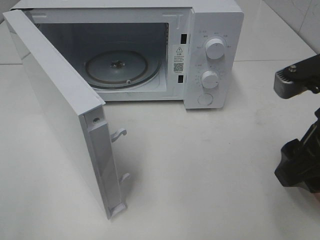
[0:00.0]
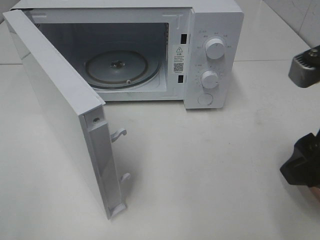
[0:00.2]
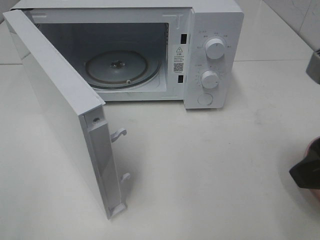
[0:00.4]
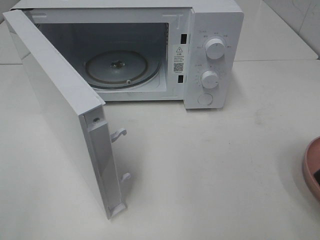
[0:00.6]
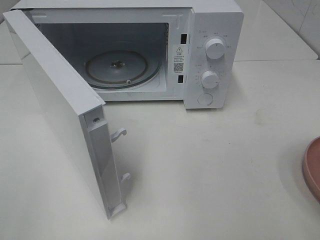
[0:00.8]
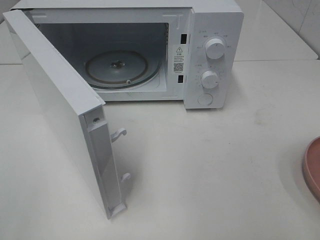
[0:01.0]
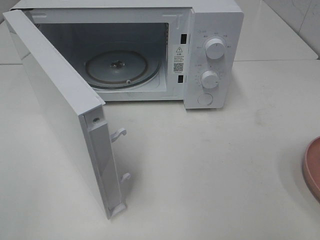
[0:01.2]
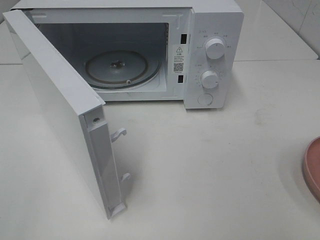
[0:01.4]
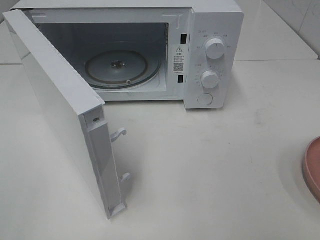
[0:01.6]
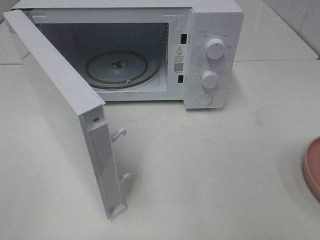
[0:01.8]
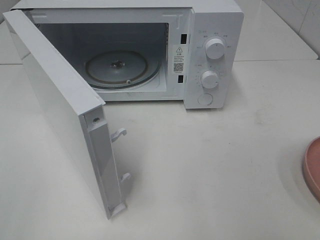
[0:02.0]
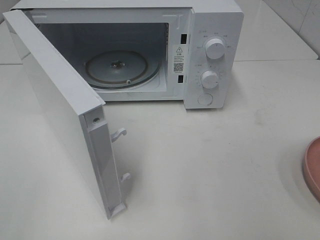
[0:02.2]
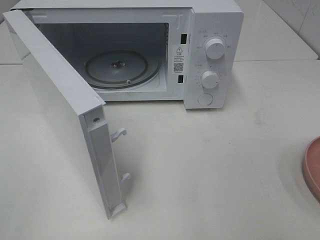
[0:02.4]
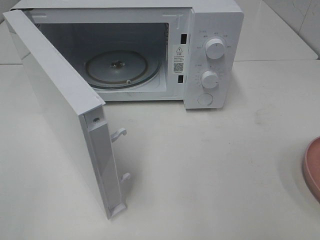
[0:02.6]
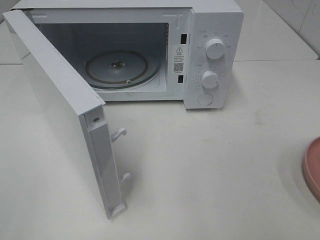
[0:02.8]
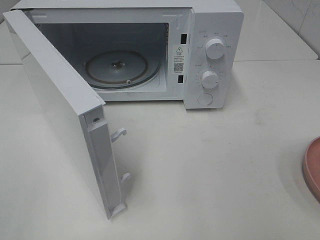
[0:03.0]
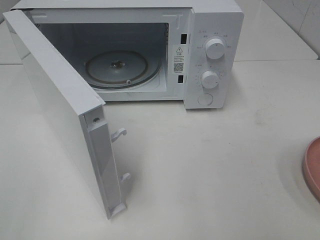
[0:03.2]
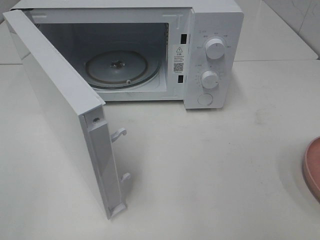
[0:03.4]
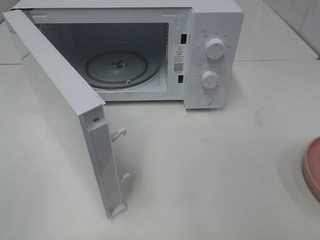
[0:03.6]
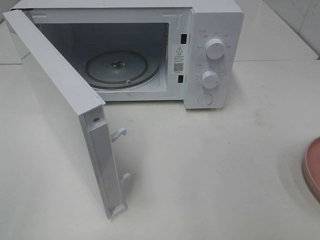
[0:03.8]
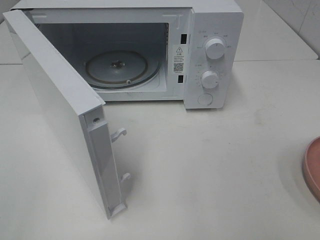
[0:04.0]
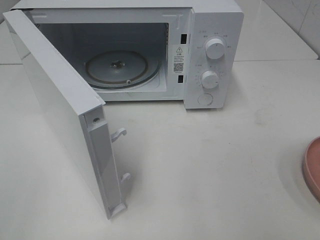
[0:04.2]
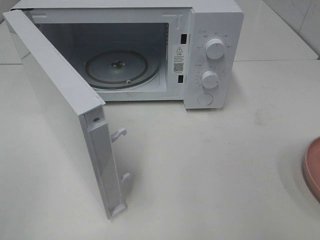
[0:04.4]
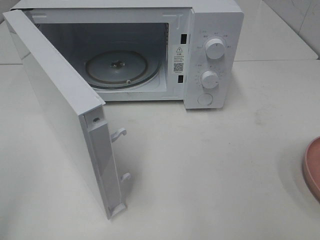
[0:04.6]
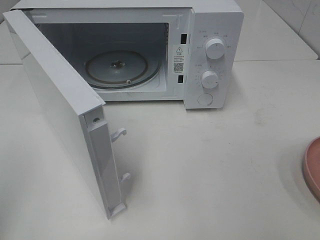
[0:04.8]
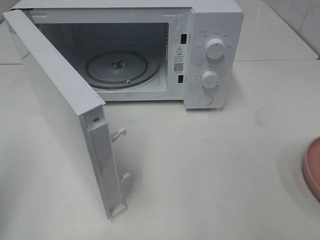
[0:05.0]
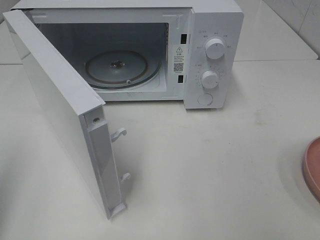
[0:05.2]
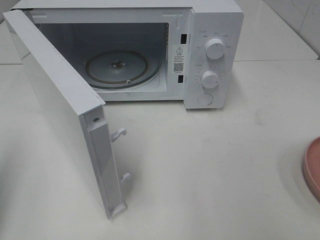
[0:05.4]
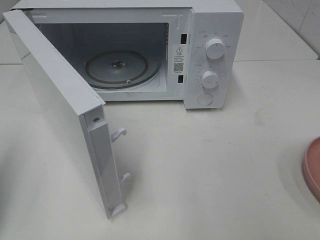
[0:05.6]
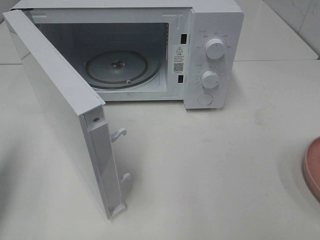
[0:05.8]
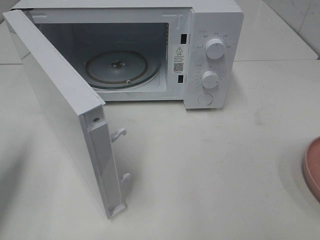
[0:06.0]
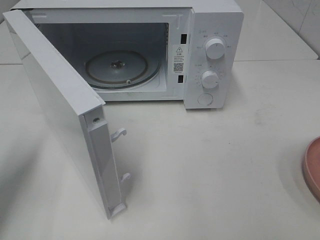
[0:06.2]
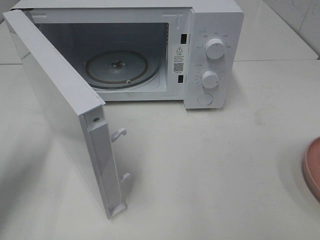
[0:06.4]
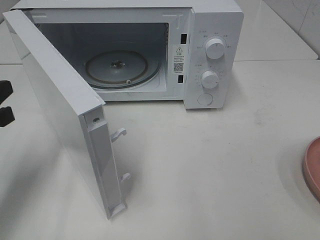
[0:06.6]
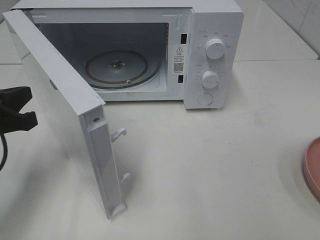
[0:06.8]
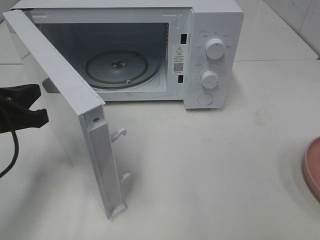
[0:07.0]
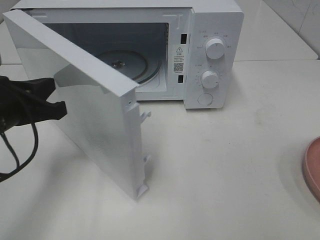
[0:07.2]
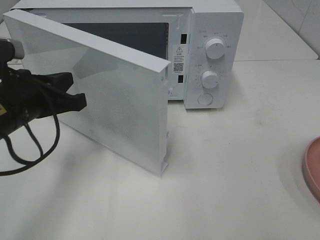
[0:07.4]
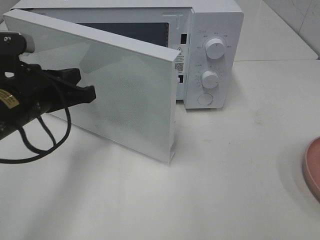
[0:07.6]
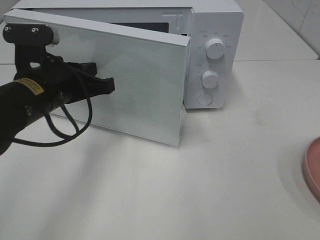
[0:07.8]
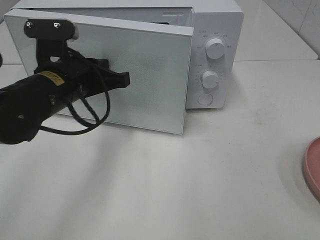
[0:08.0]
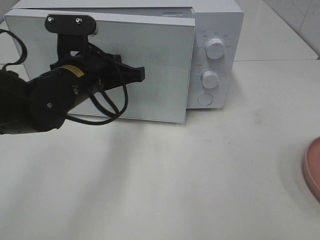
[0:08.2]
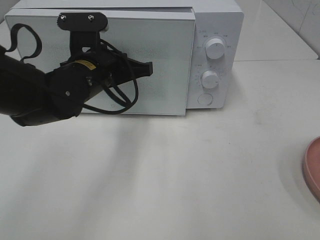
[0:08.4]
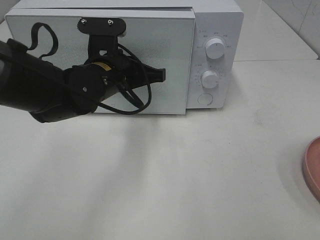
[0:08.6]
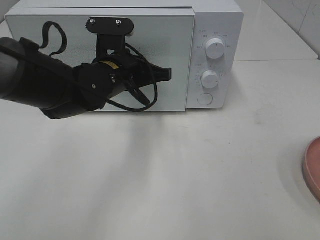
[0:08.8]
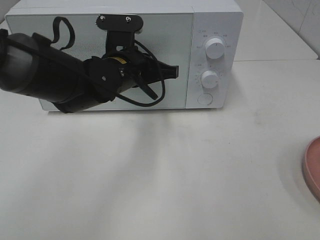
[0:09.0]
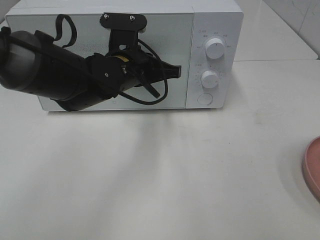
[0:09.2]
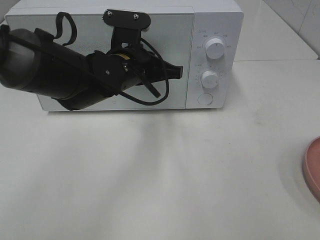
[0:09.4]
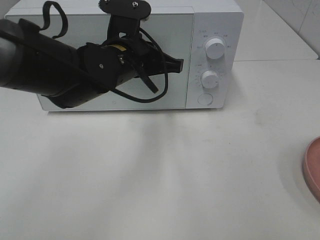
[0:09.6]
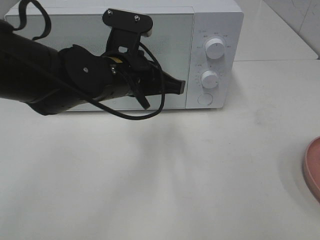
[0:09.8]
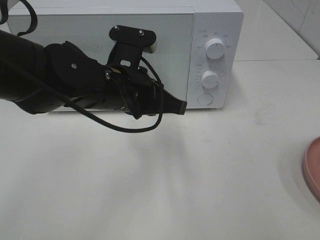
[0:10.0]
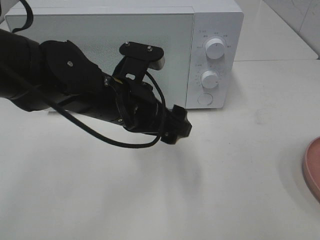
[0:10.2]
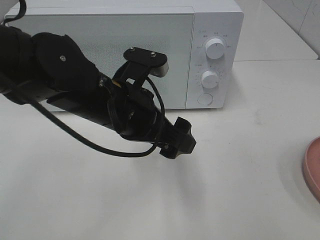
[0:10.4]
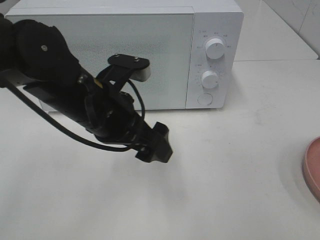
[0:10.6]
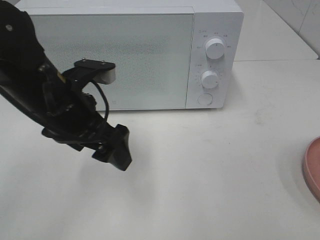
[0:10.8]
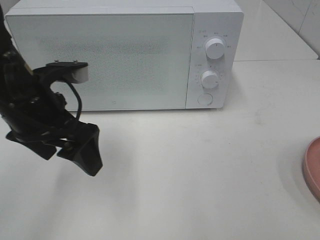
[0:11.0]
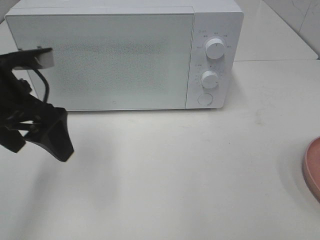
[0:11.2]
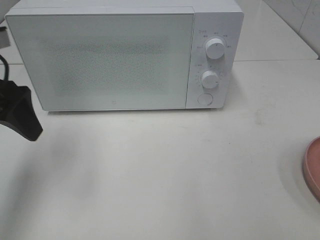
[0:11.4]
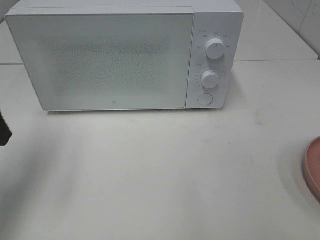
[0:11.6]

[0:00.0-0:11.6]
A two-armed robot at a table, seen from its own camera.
Task of the whole recording: Heat the burger.
Step, 0.0 to 9.8 s: Left hand: close the microwave door.
0.0 to 1.4 s: The right gripper shifts some 15 cm backward and to the right.
4.4 to 5.8 s: The left gripper is displaced forward and downward by approximately 15 cm, and closes.
5.8 to 7.2 s: The left gripper moves to the right, forward and downward, some 15 cm.
7.2 to 8.8 s: The left gripper shifts approximately 20 cm to the right and forward.
8.8 to 10.2 s: The left gripper is displaced backward by about 10 cm, and opens up.
10.2 to 11.6 s: The left gripper goes some 25 cm to the left.

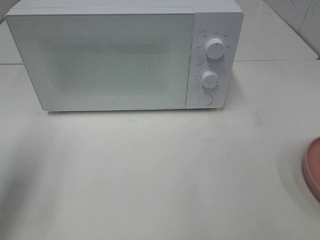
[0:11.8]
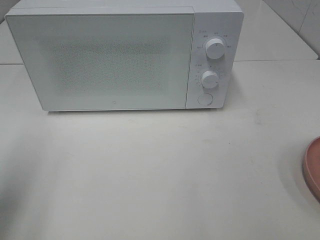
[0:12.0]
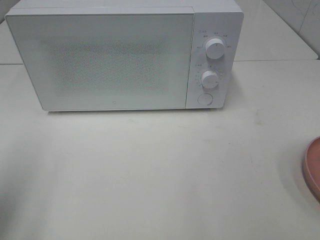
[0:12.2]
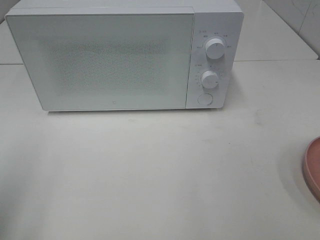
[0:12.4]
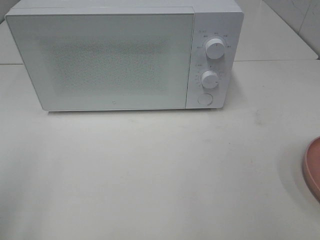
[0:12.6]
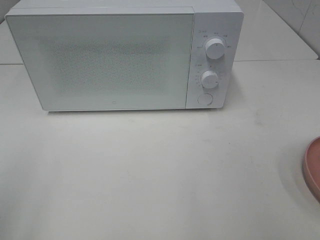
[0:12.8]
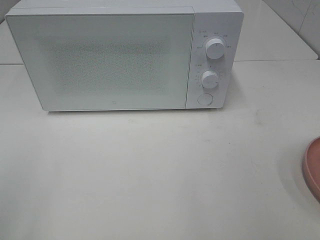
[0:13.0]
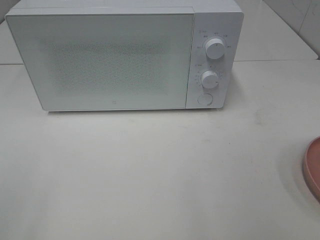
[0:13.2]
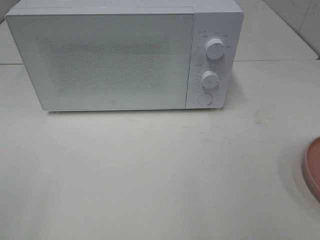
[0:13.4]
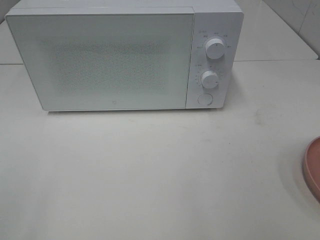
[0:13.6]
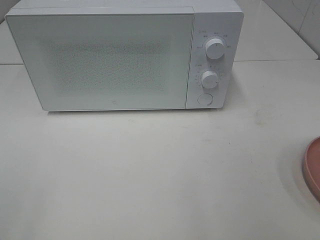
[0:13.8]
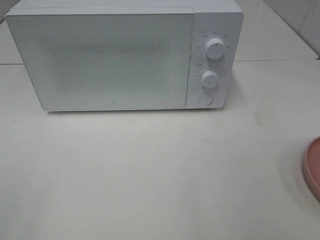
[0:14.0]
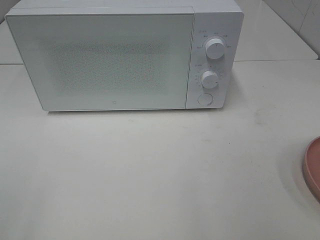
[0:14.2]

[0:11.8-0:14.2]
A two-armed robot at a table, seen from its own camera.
Task of the whole recording: Heat the burger.
11.8 to 13.0 s: The left gripper heads backward, covering roughly 15 cm.

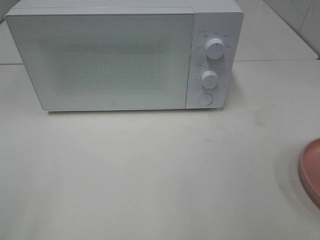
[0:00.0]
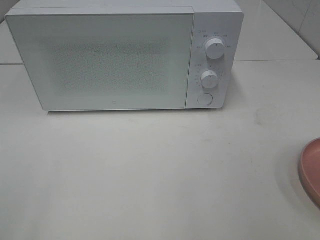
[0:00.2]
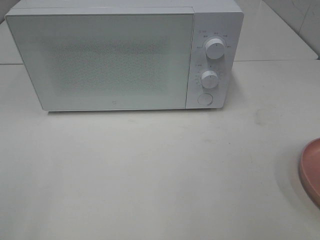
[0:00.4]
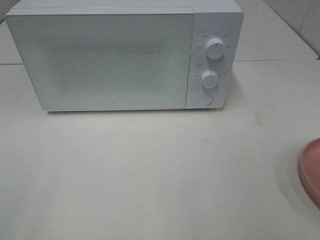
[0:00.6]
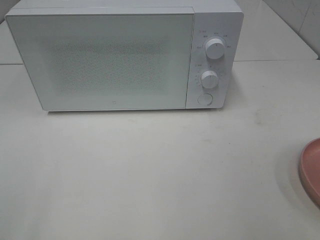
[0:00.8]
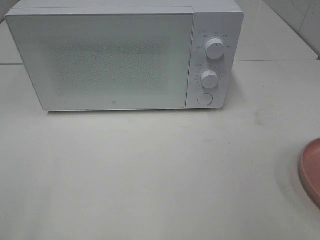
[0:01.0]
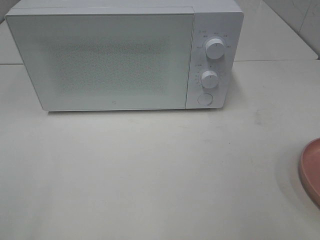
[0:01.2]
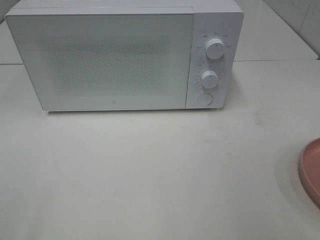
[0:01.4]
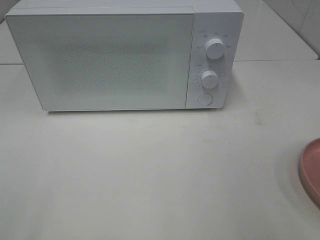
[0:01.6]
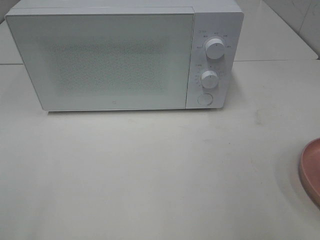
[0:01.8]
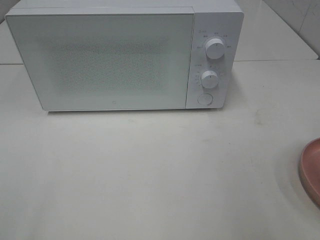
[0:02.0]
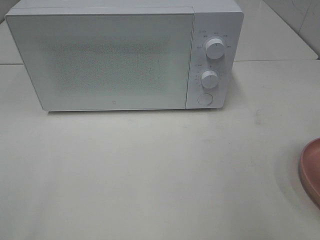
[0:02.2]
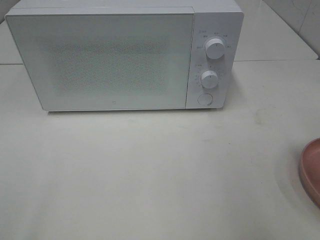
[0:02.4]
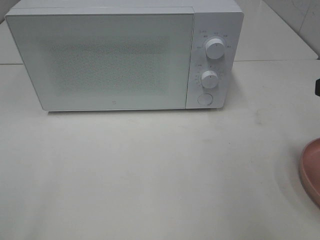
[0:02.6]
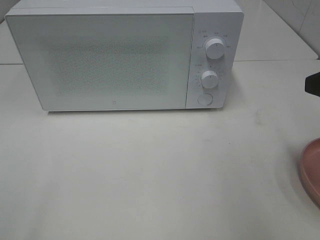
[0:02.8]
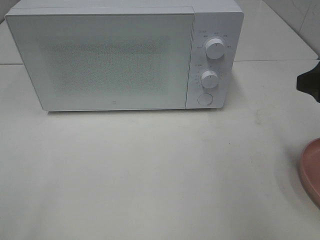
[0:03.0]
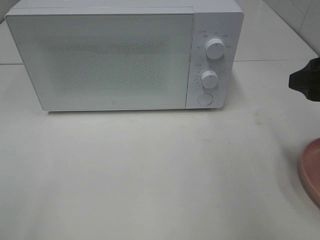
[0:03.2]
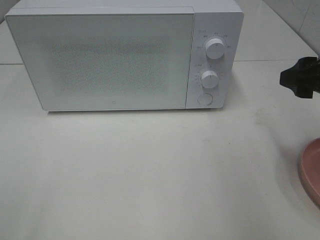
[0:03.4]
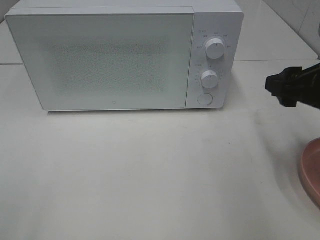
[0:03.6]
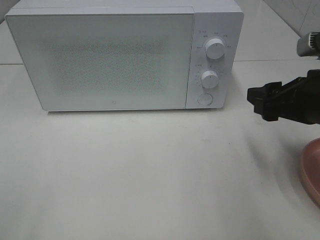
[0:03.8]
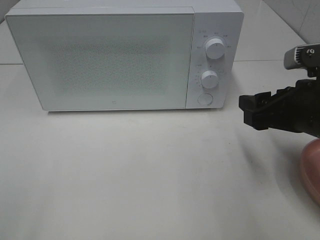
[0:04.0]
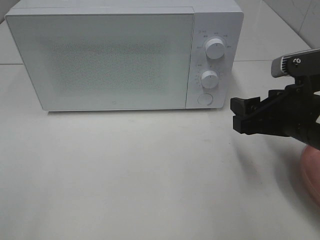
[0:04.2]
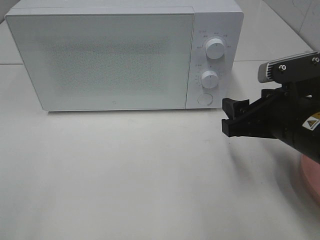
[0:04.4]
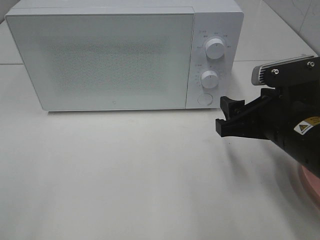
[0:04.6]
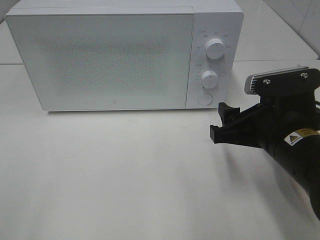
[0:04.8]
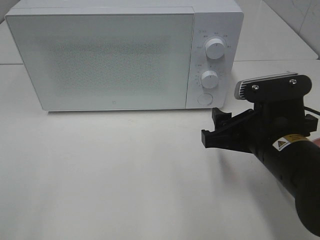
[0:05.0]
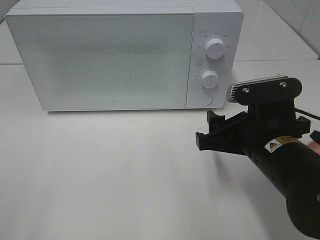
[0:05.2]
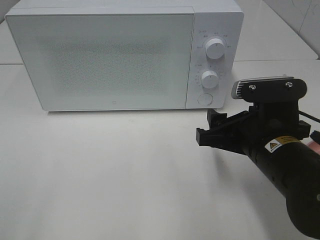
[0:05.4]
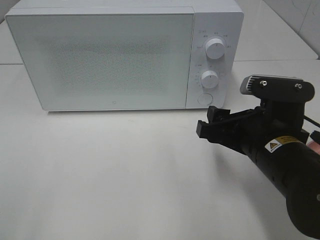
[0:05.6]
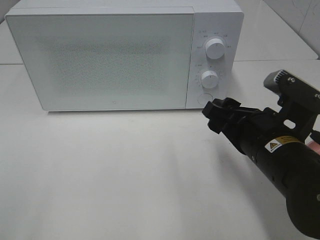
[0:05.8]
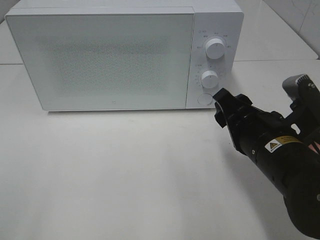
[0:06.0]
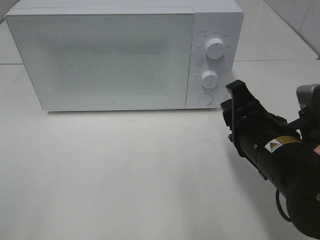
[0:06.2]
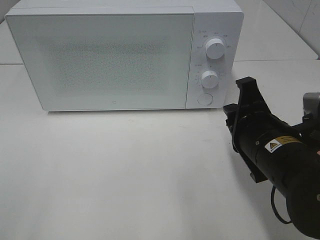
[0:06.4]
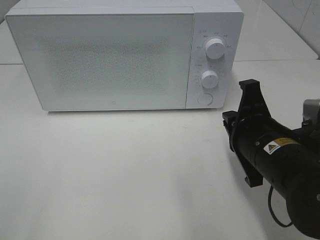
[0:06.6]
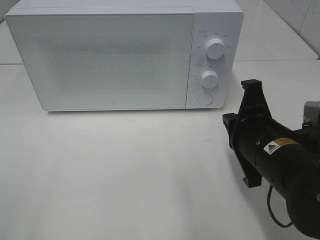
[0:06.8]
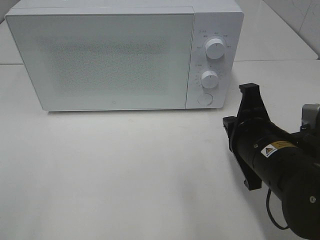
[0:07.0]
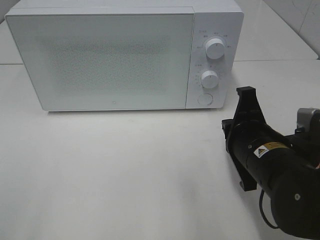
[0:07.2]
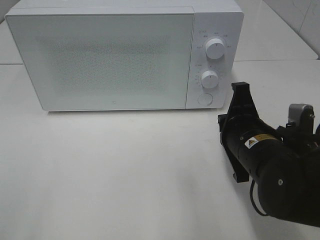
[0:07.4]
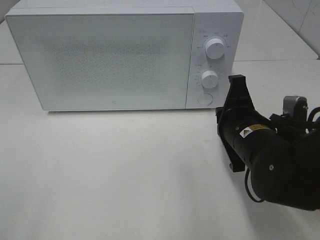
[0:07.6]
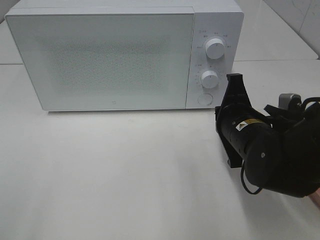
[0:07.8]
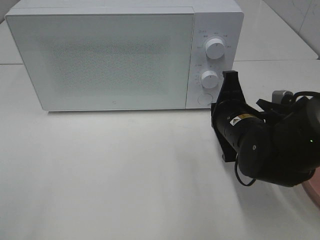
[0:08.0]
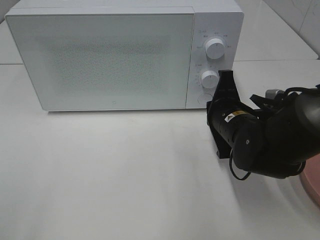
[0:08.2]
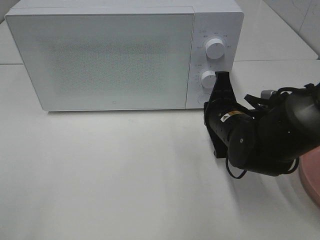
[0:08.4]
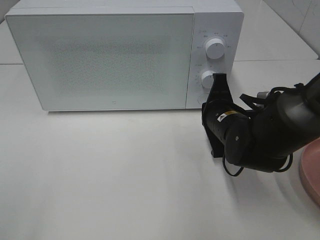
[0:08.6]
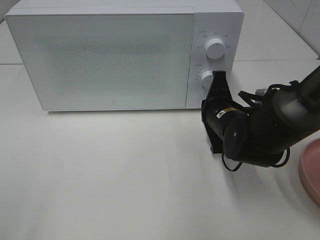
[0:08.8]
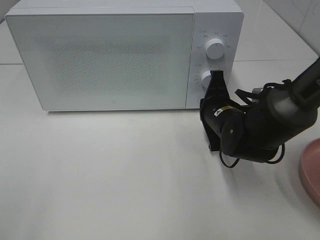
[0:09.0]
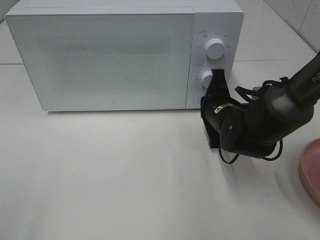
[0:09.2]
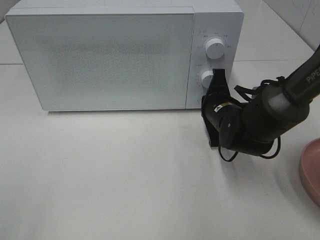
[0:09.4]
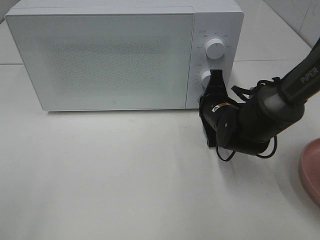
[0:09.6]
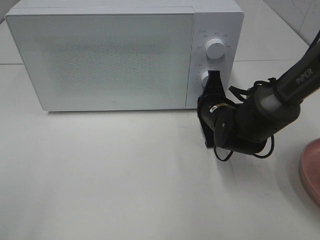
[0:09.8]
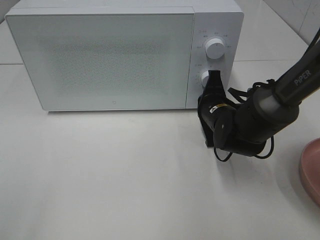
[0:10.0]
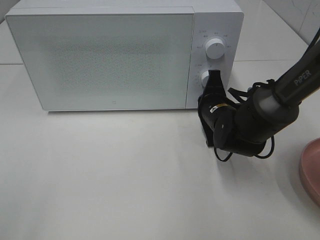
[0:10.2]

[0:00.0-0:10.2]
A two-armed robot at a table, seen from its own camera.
Task of the whole recording: Heat the burger.
1.4 to 3.0 s: The right gripper goes some 15 cm forward.
3.0 to 4.4 s: The right gripper goes about 10 cm downward and to the left.
5.8 to 7.2 s: The right gripper closes up.
7.2 to 8.8 s: The right gripper is displaced forward by some 10 cm.
8.8 to 10.2 s: The grippers stay close to where they were, moving slightly.
